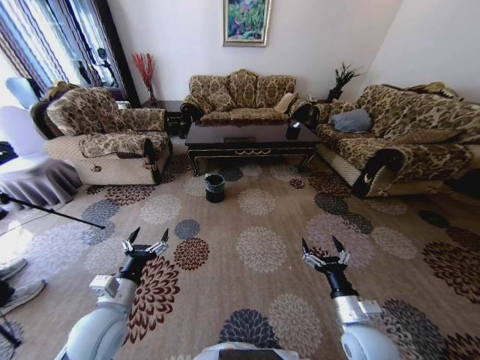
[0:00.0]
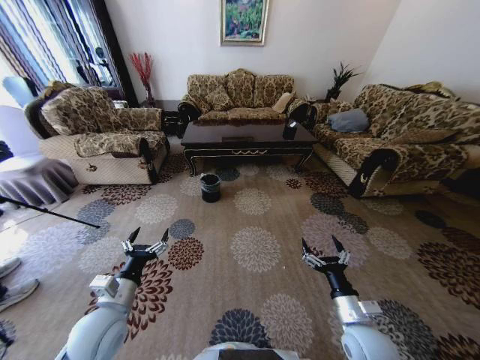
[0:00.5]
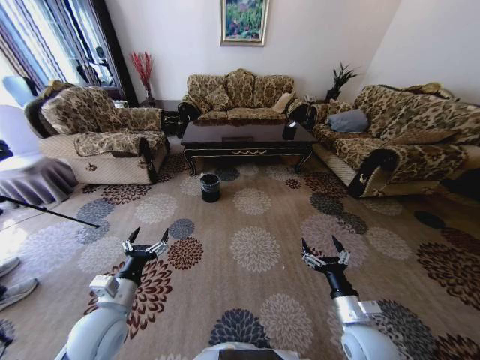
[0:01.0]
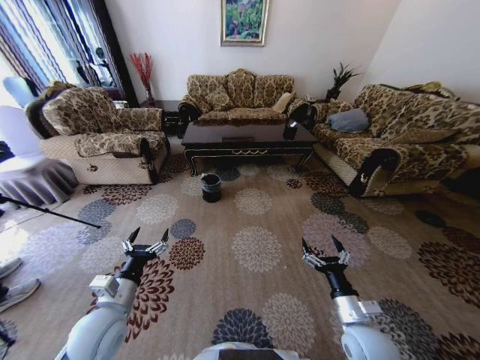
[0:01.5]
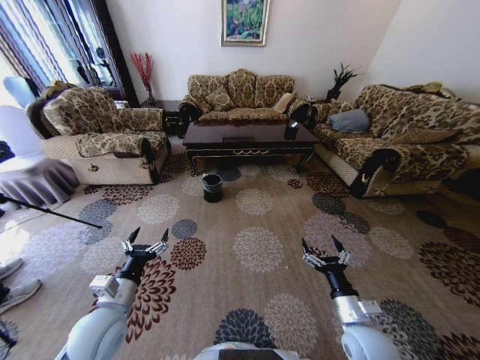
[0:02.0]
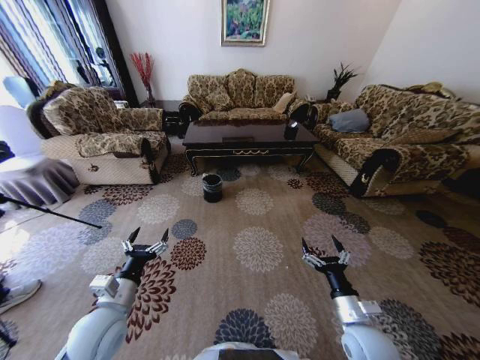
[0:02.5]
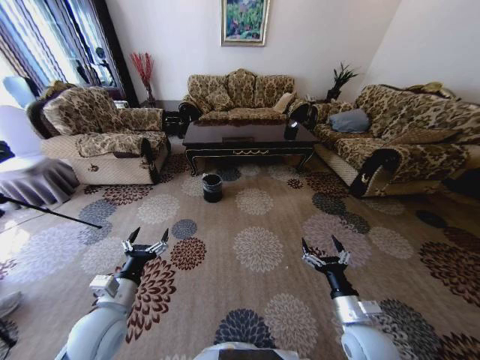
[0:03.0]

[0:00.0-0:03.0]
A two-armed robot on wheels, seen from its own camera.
Task of the whole recording: Move to the front of the table and pick up the trash from the floor, then place it into the trash bin.
0:00.0 to 0:03.0: Both grippers stay put.

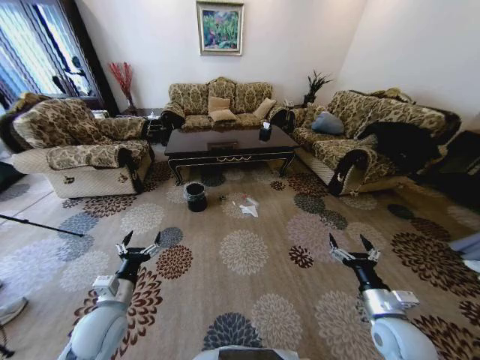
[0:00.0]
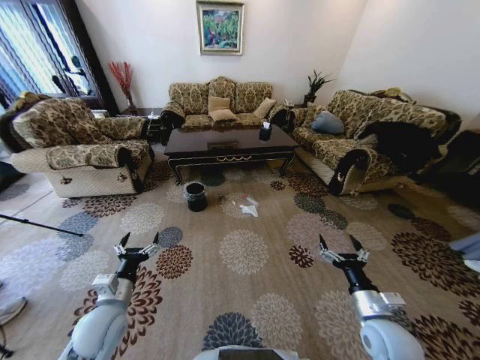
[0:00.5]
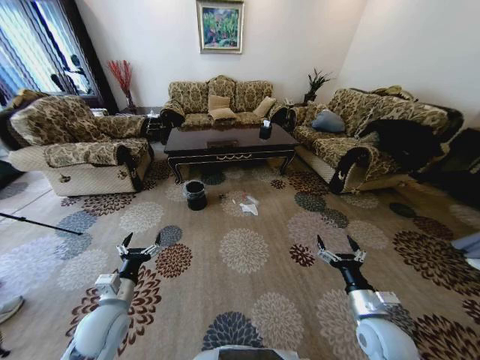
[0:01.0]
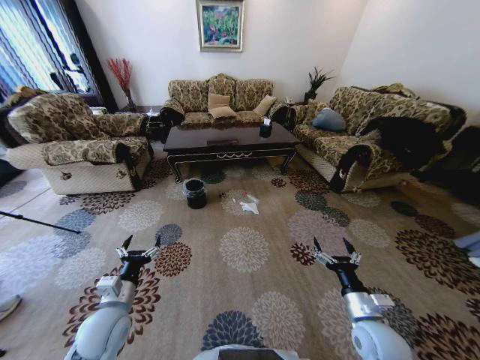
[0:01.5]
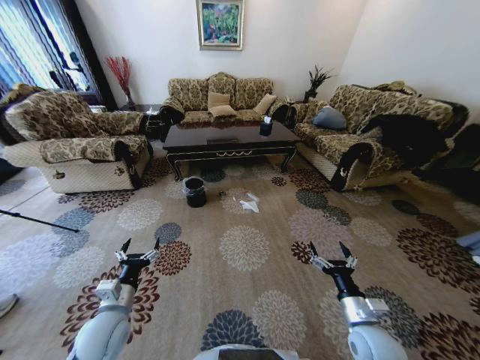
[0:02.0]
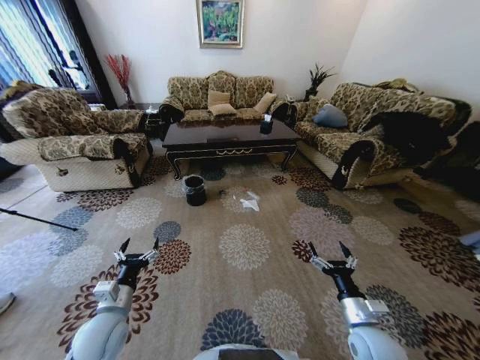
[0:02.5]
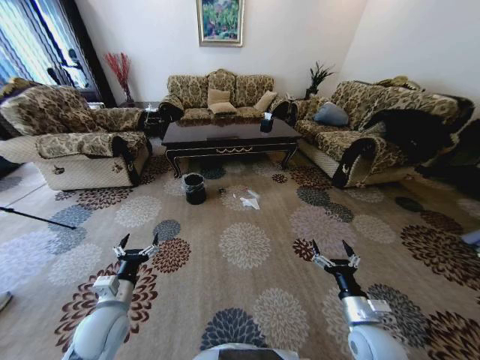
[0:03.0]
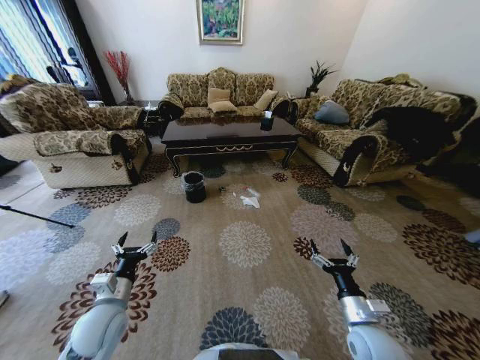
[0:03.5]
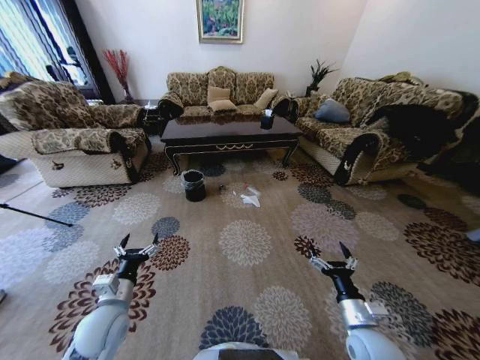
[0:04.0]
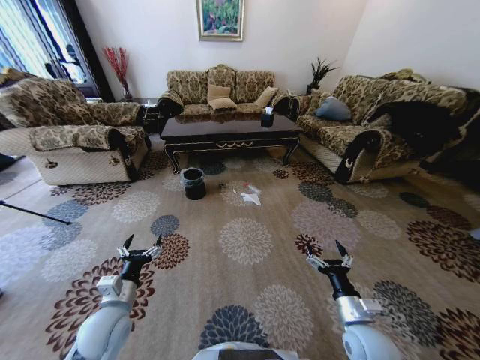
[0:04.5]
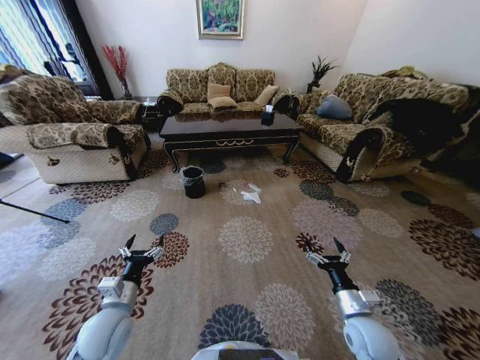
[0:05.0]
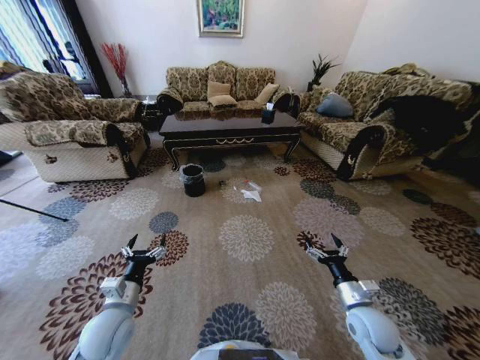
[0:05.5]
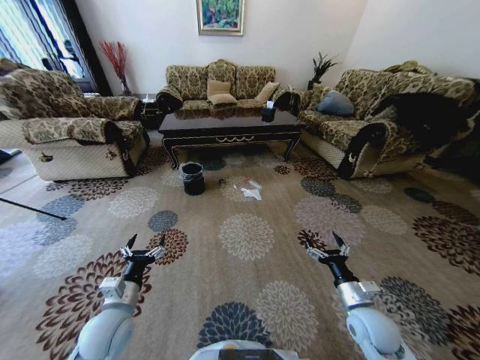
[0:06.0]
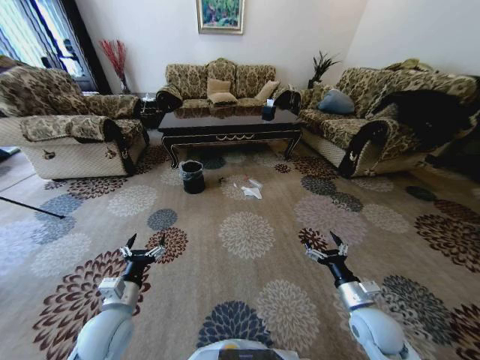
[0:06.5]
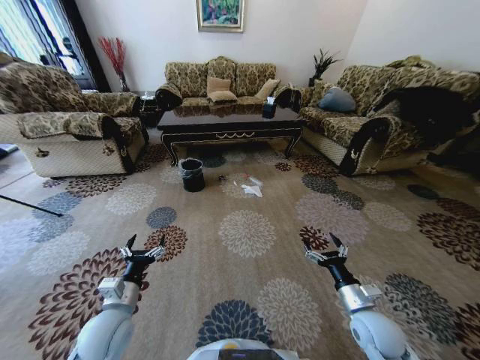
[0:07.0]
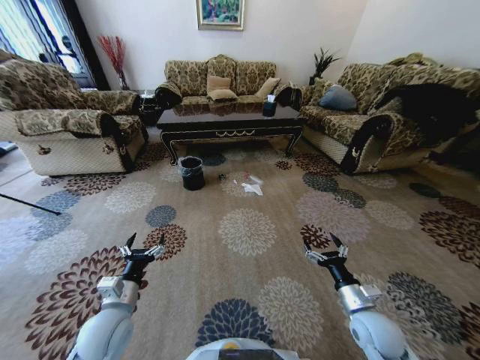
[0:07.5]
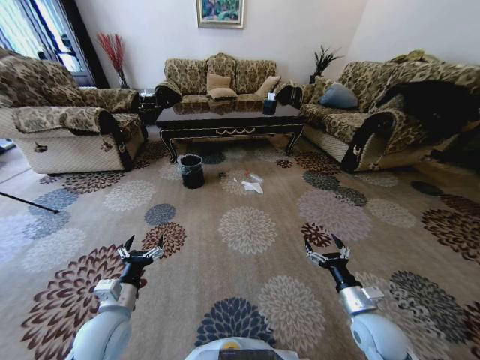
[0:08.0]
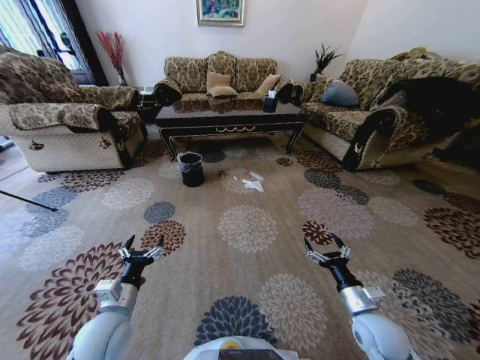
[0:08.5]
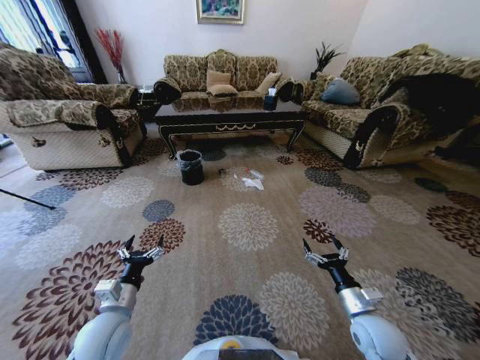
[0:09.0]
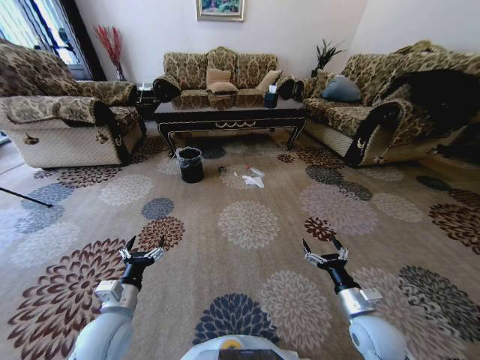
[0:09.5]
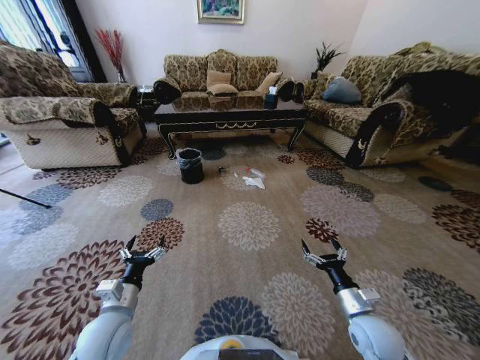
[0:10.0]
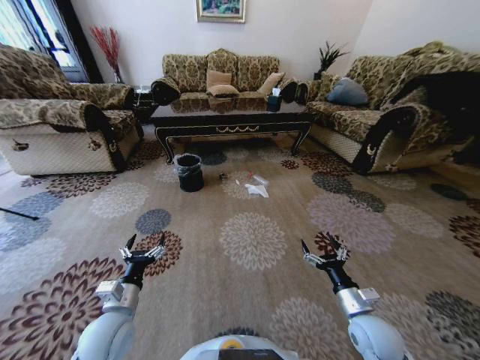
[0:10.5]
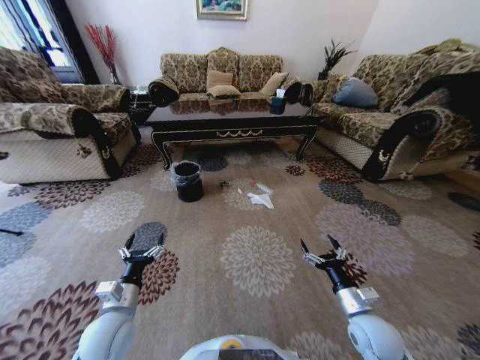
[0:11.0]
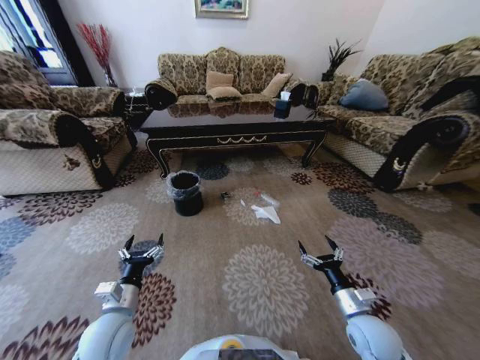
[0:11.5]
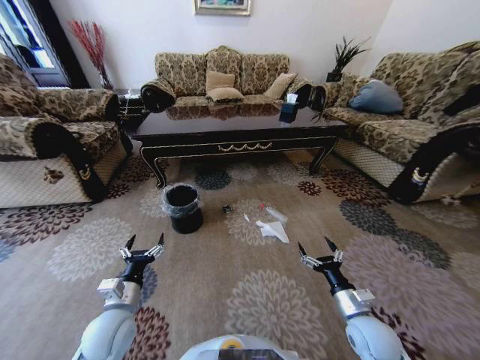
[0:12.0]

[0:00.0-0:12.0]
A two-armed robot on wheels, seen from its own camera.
Task of the whole recording: Move to the front of the table and pick up the trash from the floor, then place it into the trash bin.
0:04.0 to 0:06.0: The right gripper changes place by about 5 cm.

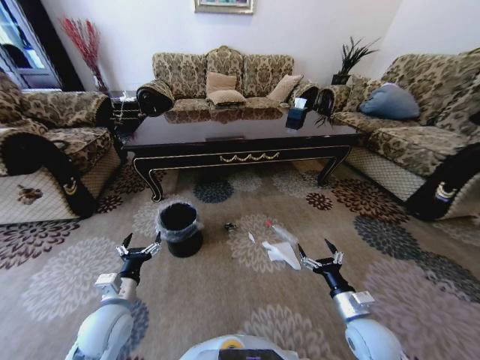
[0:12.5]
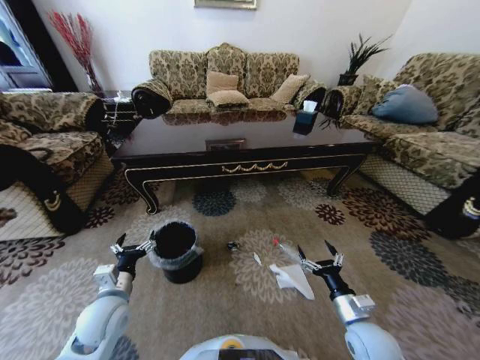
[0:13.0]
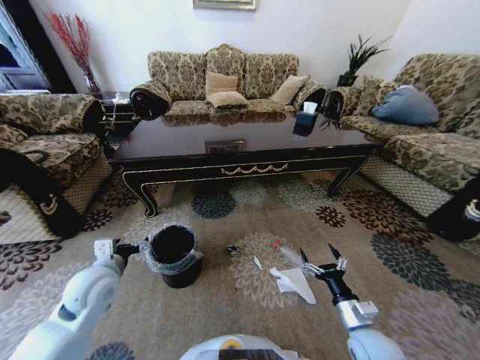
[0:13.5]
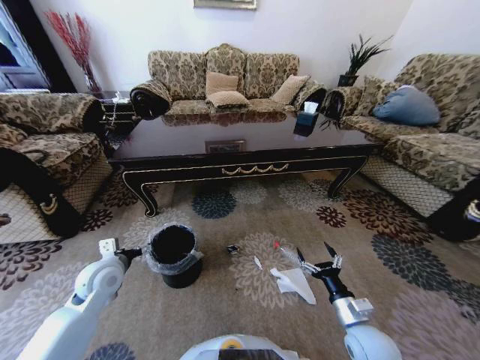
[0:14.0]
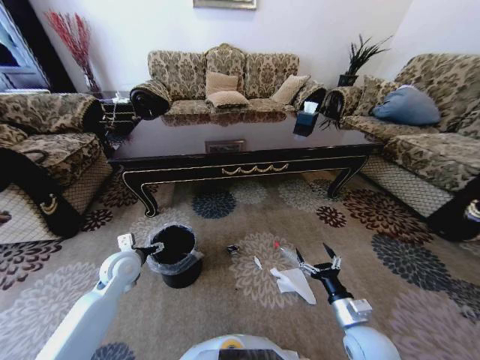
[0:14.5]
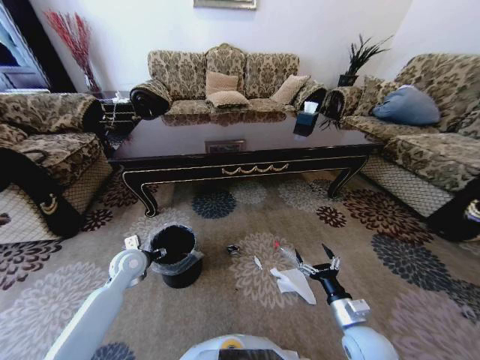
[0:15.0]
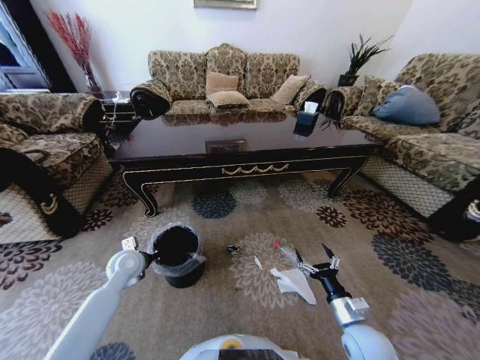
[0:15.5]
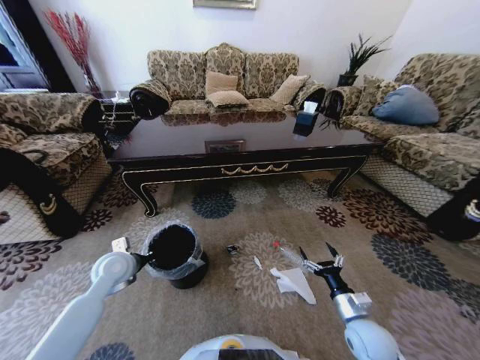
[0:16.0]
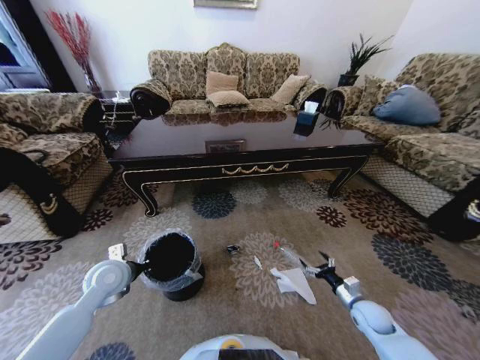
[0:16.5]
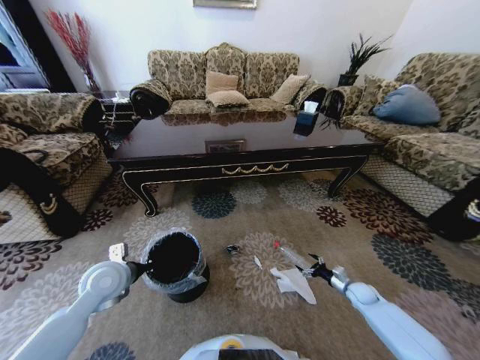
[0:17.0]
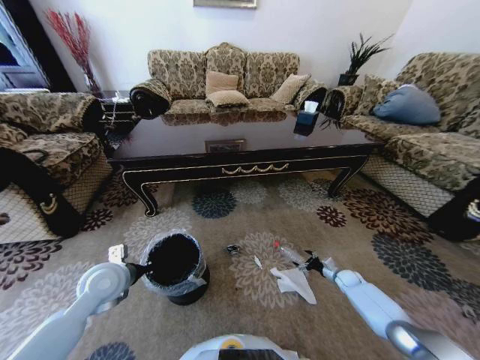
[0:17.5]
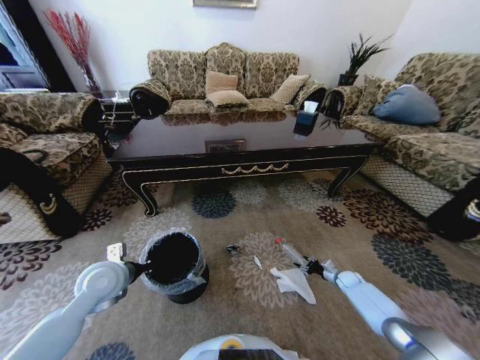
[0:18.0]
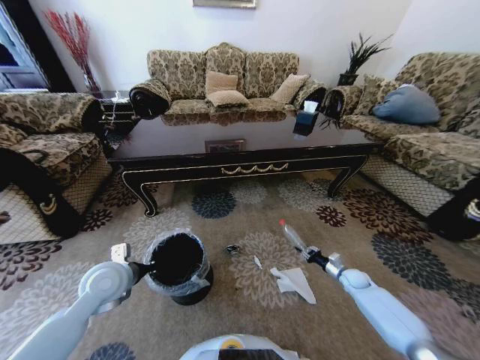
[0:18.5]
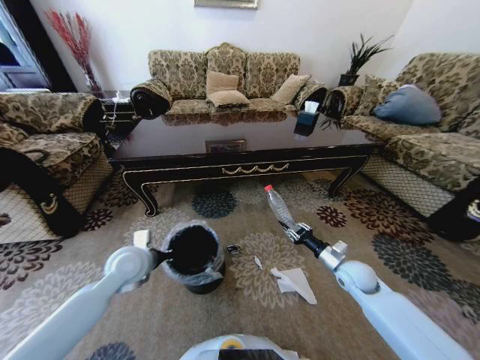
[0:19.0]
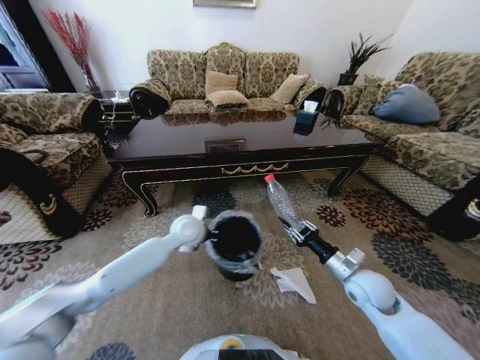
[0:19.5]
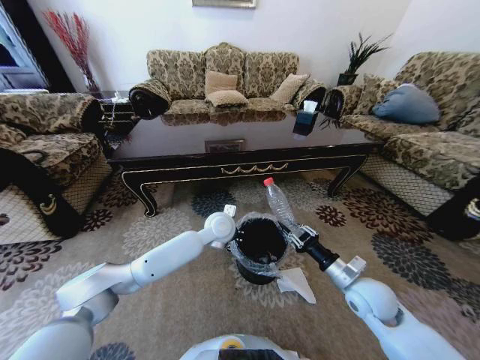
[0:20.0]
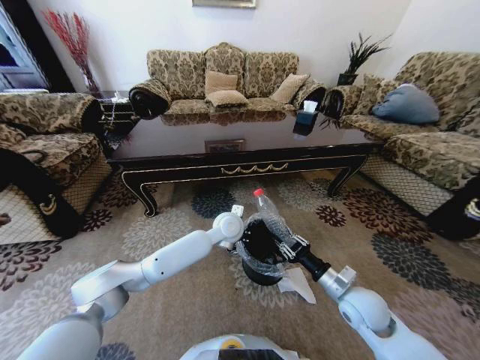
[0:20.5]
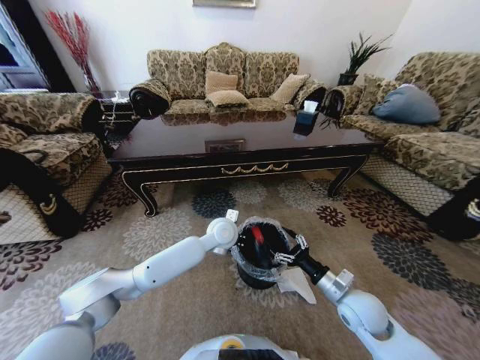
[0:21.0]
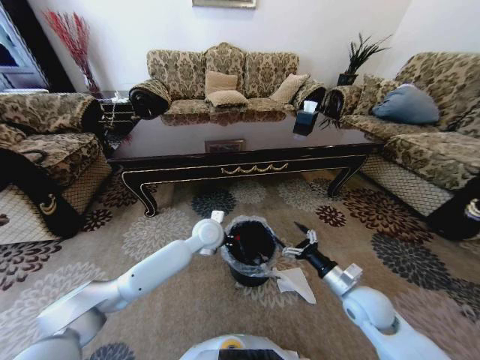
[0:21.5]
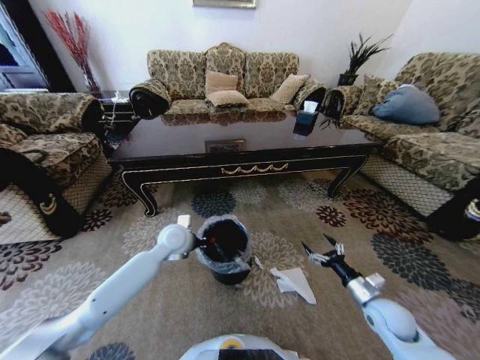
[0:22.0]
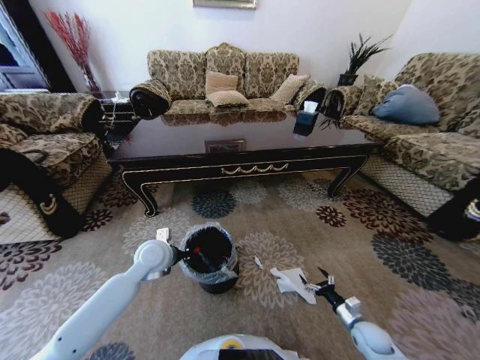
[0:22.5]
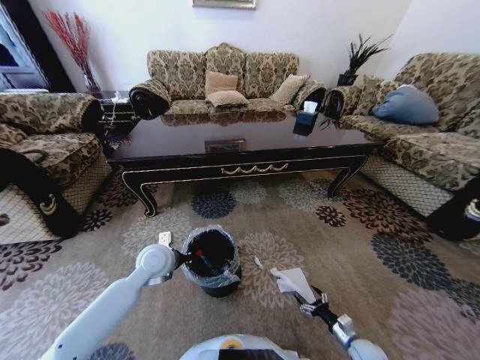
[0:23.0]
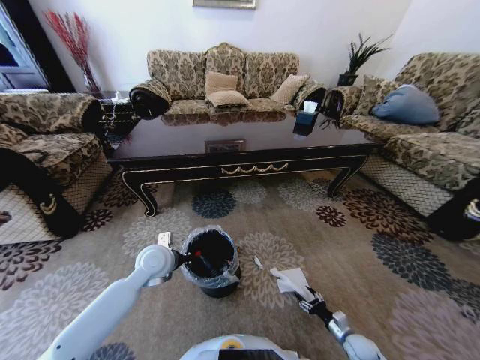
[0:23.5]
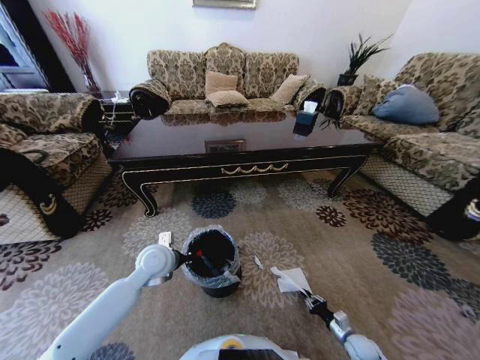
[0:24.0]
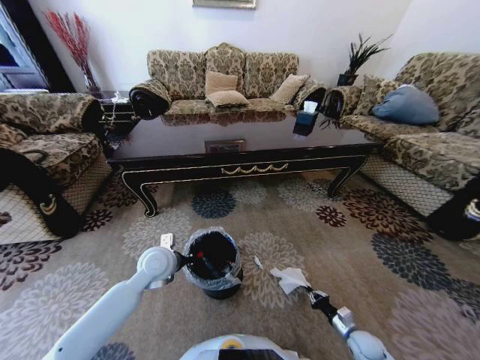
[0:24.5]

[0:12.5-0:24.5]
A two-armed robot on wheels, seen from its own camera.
Task of the whole recording: Move to the front of the table and pick up the trash from the floor, then place it into the trash bin.
0:12.5 to 0:14.5: The left gripper is displaced forward by about 15 cm.
0:14.5 to 0:16.5: The left gripper closes its fingers; the right gripper shifts about 15 cm to the right, downward and forward.
0:16.5 to 0:18.5: The right gripper travels forward and to the right by about 15 cm, and closes.
0:18.5 to 0:20.5: The right gripper shifts some 30 cm upward, to the left and backward; the left gripper heads to the right and forward, covering some 35 cm.
0:20.5 to 0:22.5: The right gripper shifts roughly 25 cm downward and to the right, and opens its fingers. Meanwhile the left gripper goes approximately 20 cm to the left.
0:22.5 to 0:24.5: The right gripper closes its fingers.
